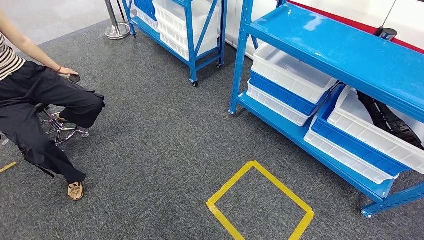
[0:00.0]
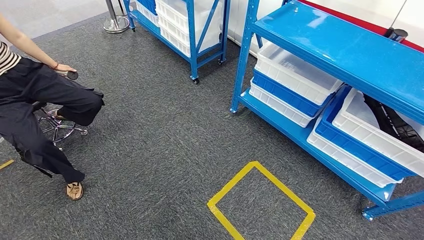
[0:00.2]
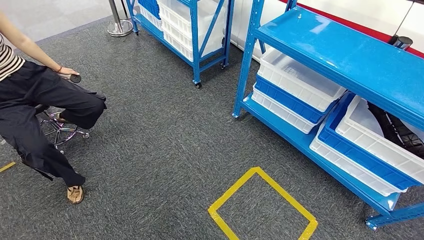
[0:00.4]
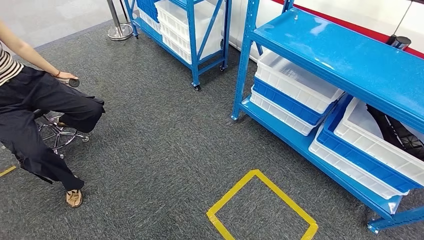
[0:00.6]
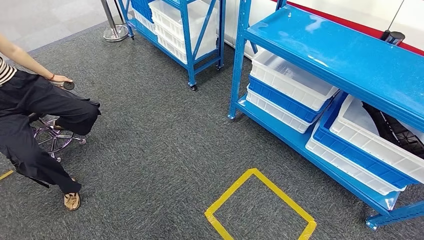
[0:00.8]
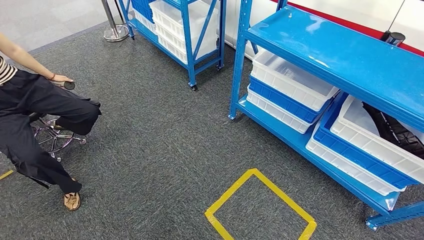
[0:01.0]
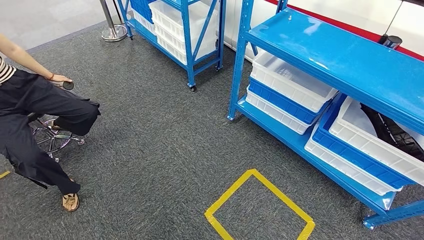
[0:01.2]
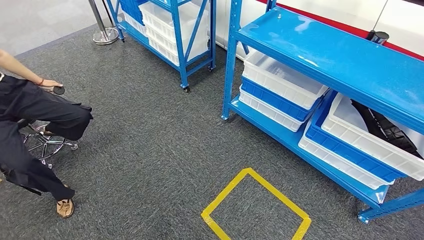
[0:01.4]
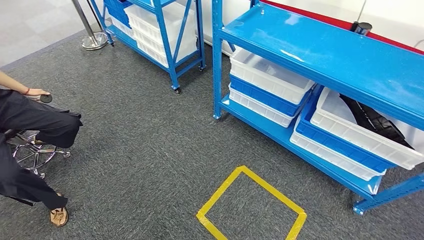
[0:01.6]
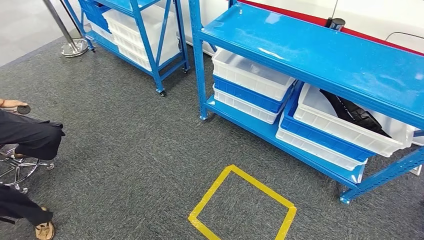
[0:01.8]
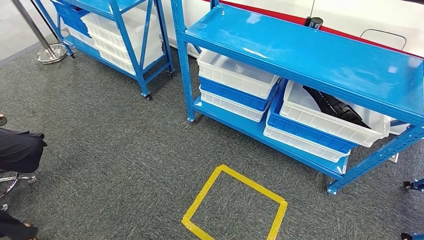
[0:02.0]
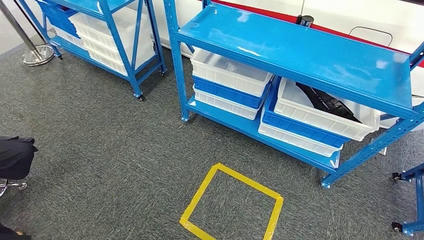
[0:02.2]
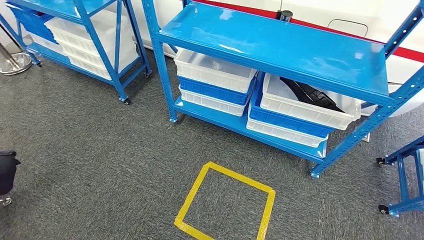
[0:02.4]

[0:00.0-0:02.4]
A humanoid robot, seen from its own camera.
Step, 0:00.0 to 0:02.4: Move to the initial position of the shelf.
